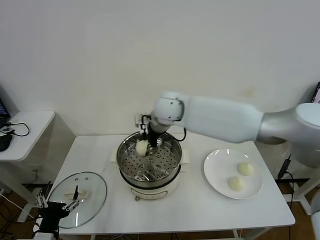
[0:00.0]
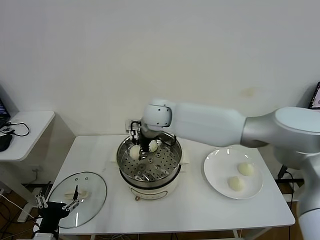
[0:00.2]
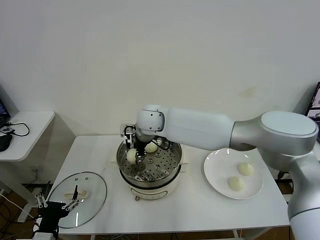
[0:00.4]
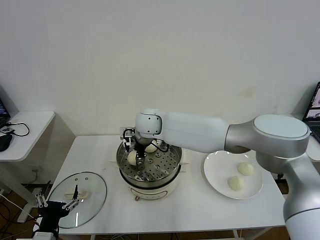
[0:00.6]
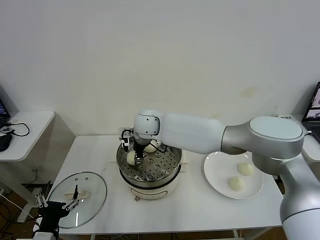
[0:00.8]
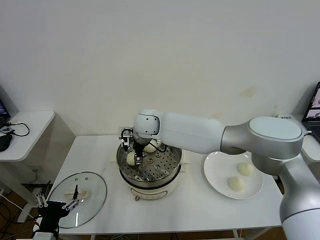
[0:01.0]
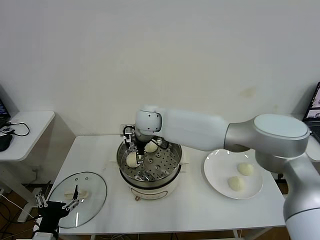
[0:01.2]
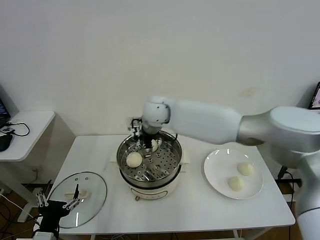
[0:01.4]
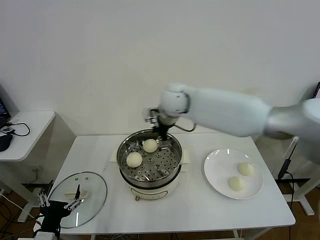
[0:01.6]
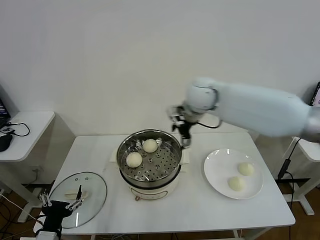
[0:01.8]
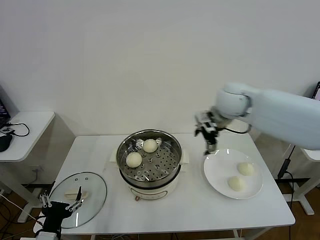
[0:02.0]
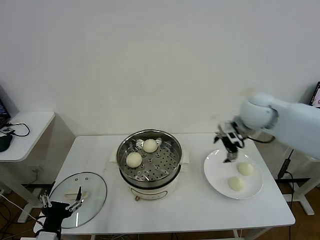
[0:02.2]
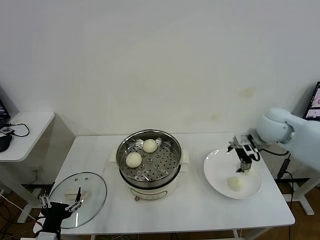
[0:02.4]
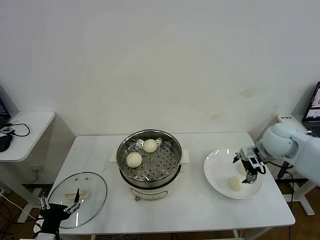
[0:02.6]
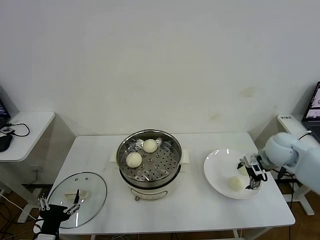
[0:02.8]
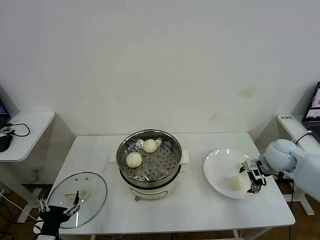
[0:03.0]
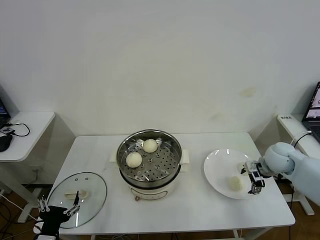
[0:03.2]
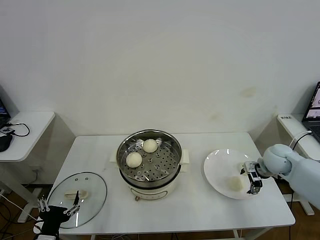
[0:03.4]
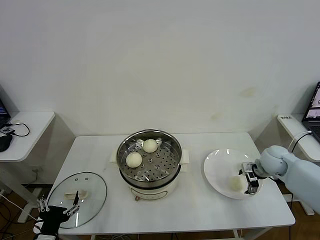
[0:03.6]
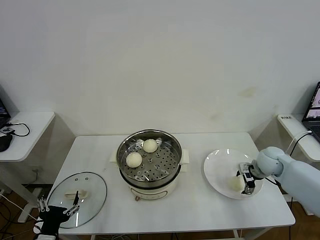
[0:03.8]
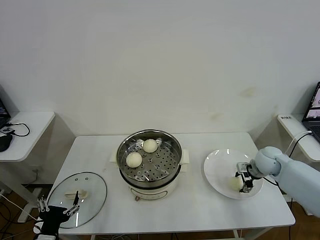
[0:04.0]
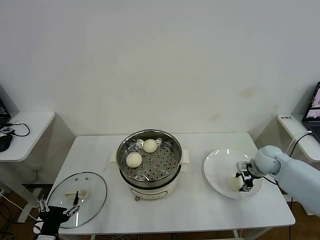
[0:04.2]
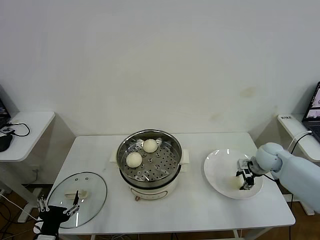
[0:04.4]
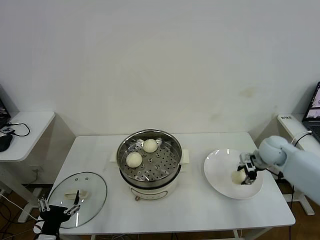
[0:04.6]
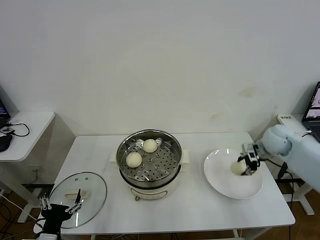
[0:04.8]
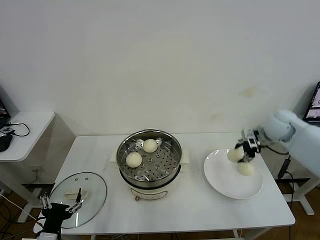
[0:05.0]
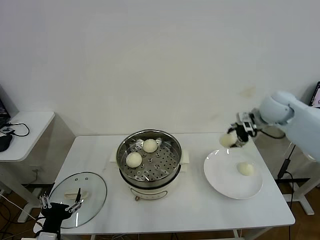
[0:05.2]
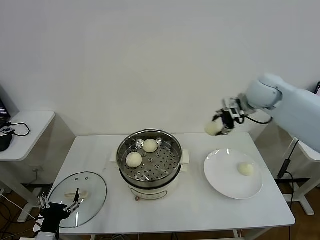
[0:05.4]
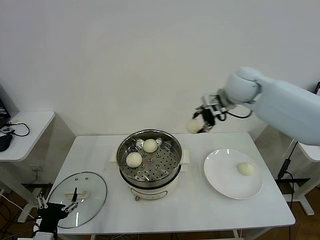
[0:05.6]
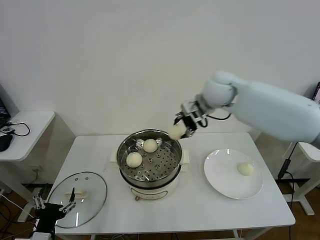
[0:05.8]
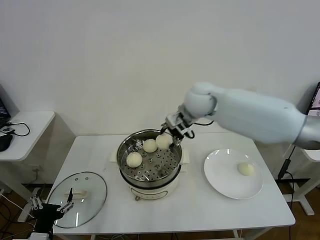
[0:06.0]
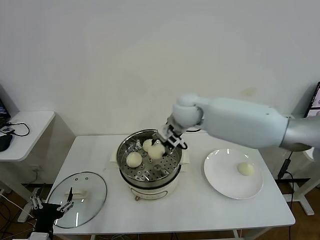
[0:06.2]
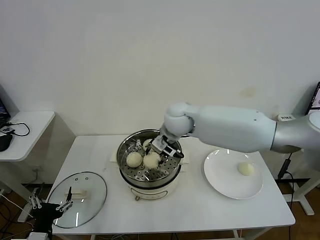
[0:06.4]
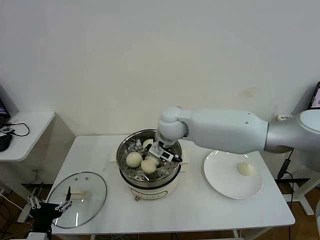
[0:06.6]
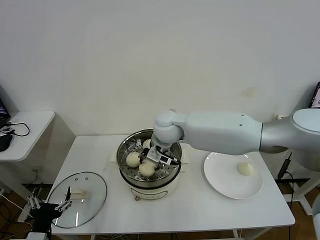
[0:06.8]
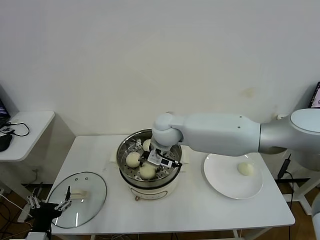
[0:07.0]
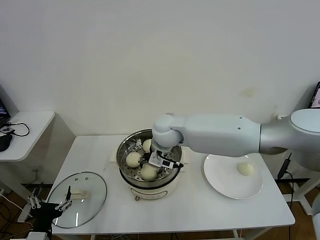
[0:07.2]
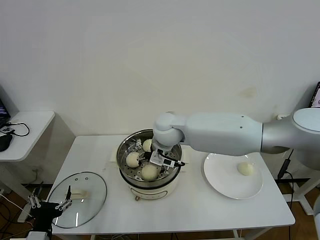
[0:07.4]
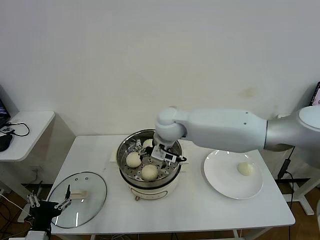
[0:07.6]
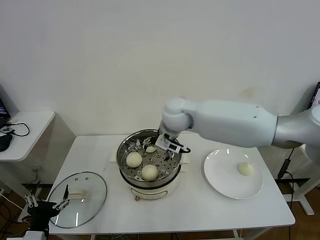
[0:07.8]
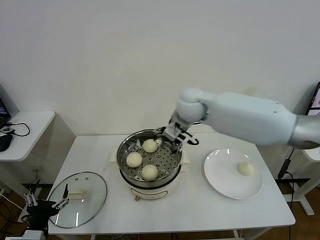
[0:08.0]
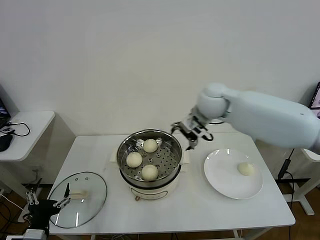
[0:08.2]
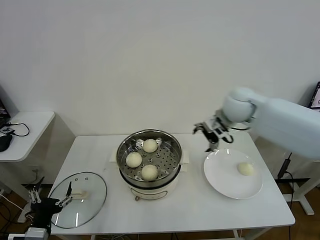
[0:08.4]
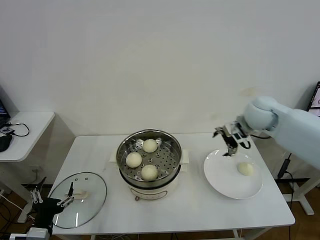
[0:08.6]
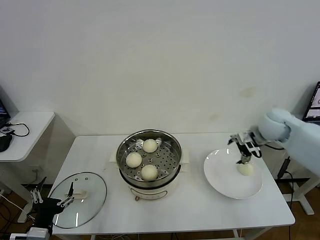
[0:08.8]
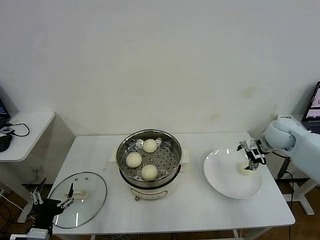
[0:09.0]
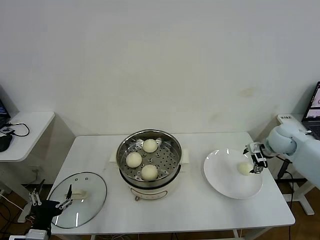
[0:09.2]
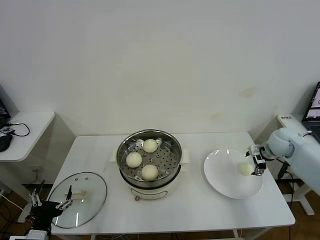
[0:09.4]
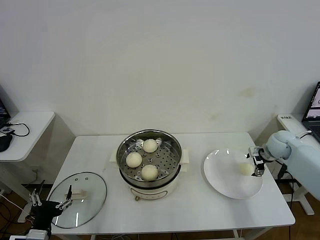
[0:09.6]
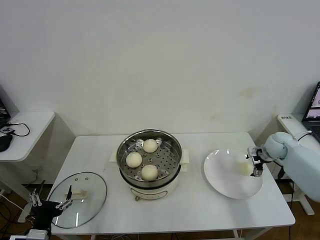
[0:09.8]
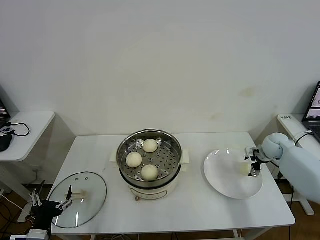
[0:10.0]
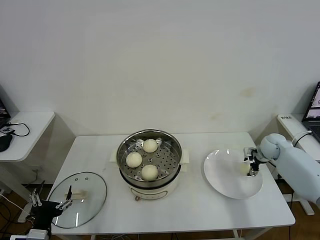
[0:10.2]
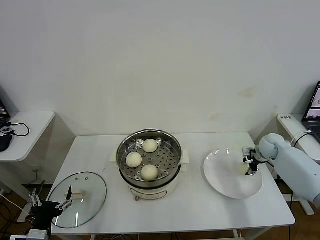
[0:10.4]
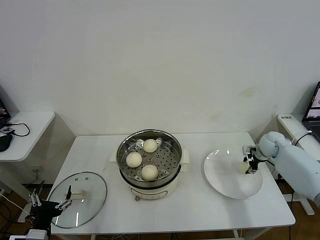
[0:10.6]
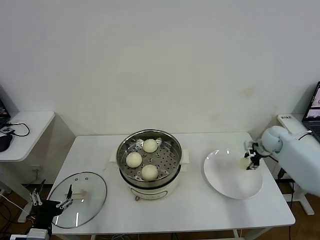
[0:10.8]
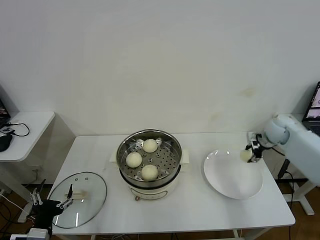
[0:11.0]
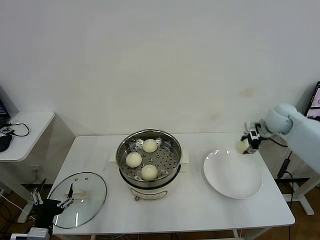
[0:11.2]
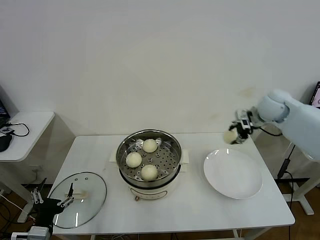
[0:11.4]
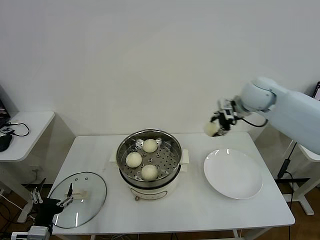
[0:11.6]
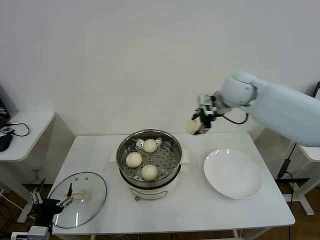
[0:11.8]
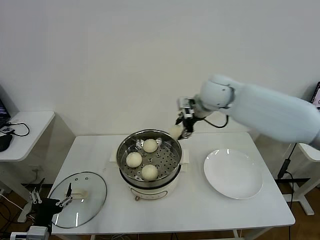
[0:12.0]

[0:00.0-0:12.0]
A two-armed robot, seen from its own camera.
Task of the whole recording: take steamed baozi put them in steamer then cover it.
Step, 0:01.4 to 0:04.2: Grasp the baozi in the plate with right gripper.
Step, 0:04.4 to 0:07.4: Place the baozi on the steamer with right gripper.
Step, 0:07.6 to 0:10.6: Grasp the baozi in the plate with right gripper.
0:00.0 to 0:01.6: The right gripper shifts roughly 5 cm to the right, and opens.
0:01.6 to 0:03.0: The right gripper moves to the right and downward, some 35 cm.
0:03.0 to 0:04.4: The right gripper closes.
0:04.4 to 0:06.0: The right gripper shifts approximately 35 cm to the left and upward.
0:06.0 to 0:07.6: The right gripper goes some 5 cm to the left, and opens its fingers.
0:07.6 to 0:09.0: The right gripper moves to the right, approximately 35 cm.
0:09.0 to 0:10.4: The right gripper moves downward, approximately 10 cm, and closes.
0:10.4 to 0:12.0: The right gripper shifts roughly 40 cm to the left and upward.

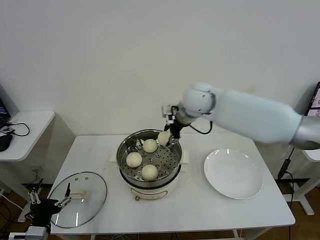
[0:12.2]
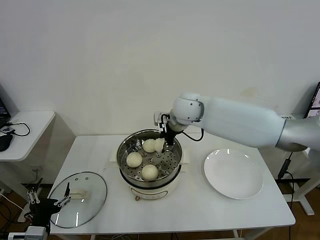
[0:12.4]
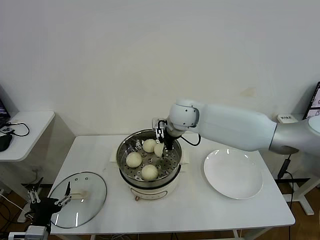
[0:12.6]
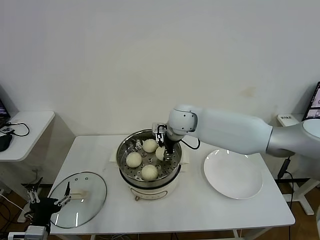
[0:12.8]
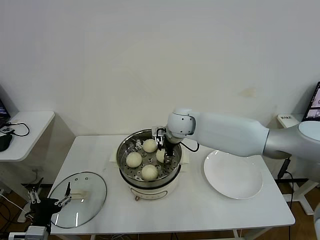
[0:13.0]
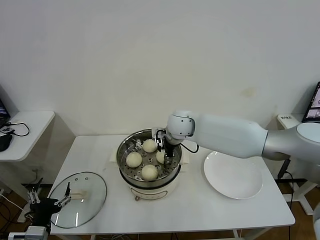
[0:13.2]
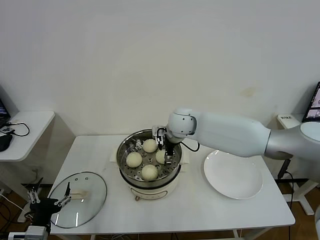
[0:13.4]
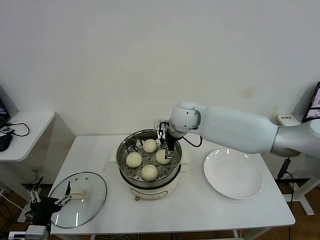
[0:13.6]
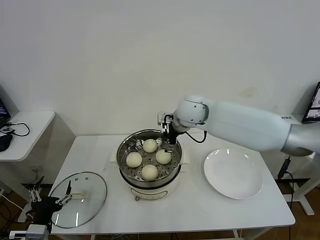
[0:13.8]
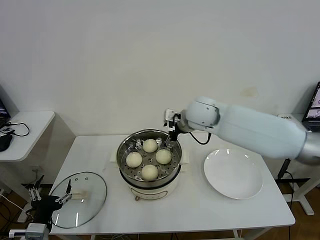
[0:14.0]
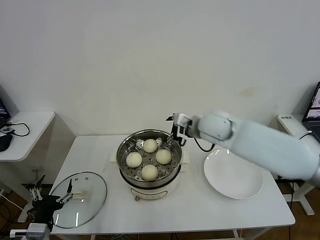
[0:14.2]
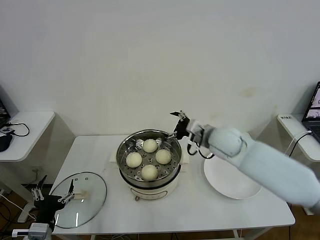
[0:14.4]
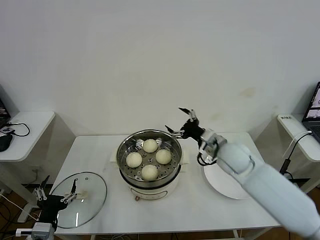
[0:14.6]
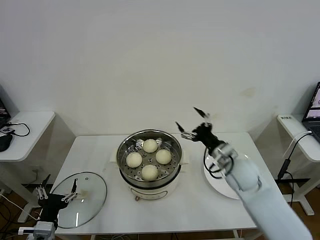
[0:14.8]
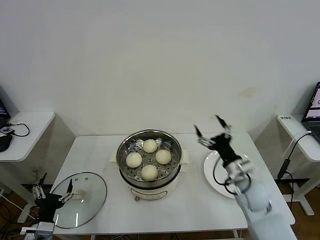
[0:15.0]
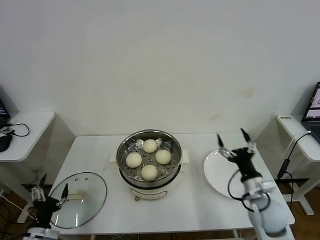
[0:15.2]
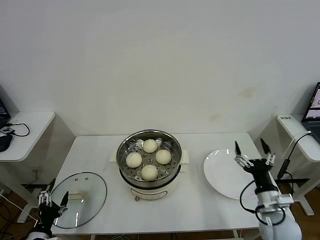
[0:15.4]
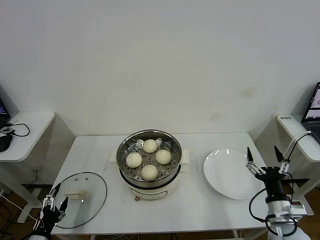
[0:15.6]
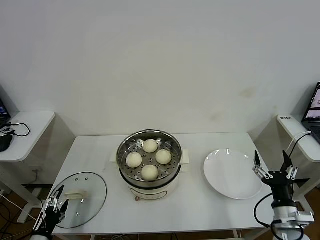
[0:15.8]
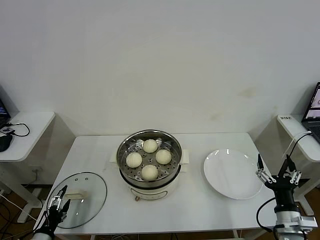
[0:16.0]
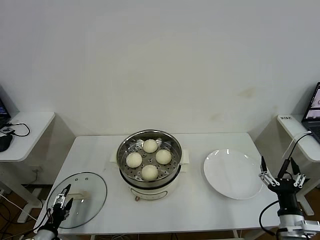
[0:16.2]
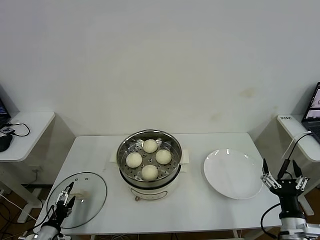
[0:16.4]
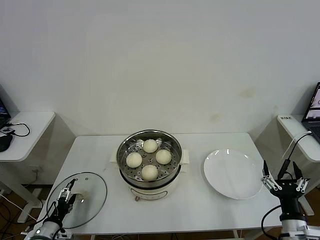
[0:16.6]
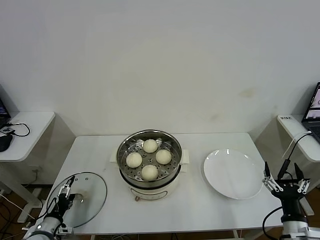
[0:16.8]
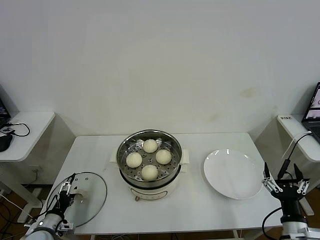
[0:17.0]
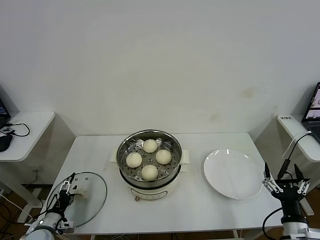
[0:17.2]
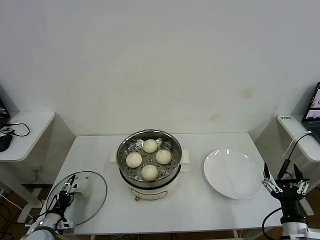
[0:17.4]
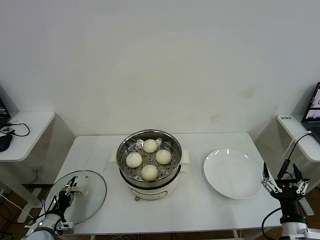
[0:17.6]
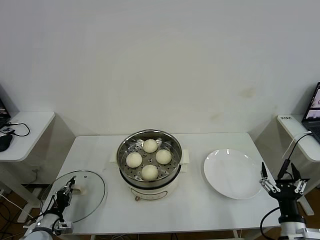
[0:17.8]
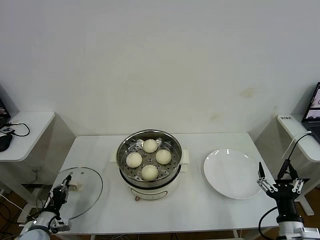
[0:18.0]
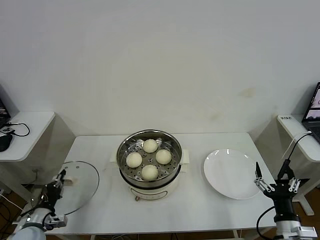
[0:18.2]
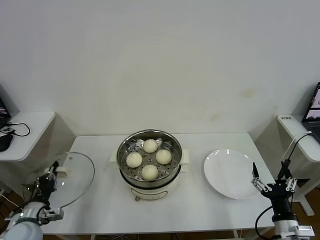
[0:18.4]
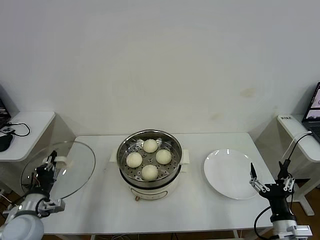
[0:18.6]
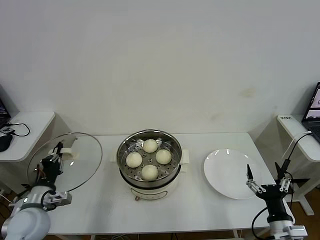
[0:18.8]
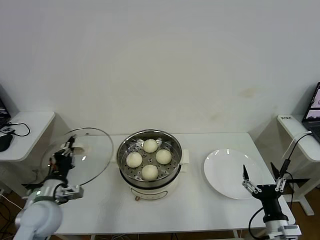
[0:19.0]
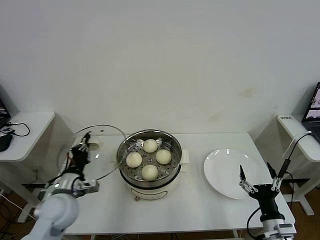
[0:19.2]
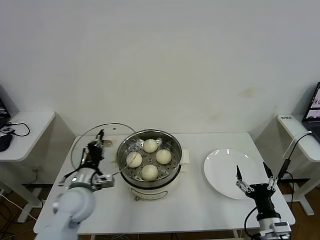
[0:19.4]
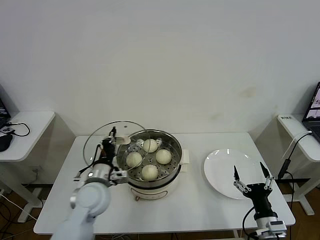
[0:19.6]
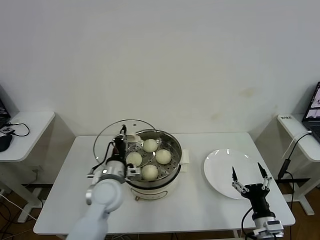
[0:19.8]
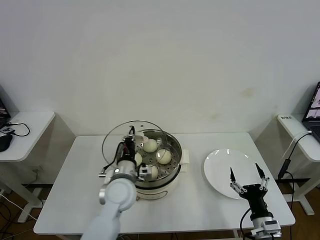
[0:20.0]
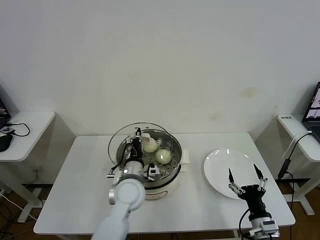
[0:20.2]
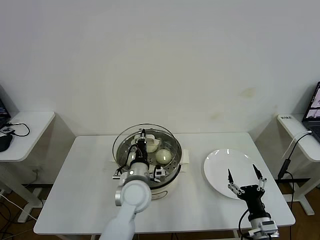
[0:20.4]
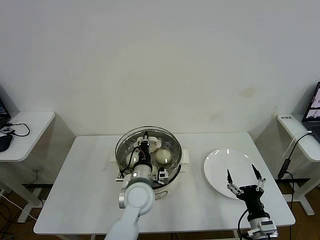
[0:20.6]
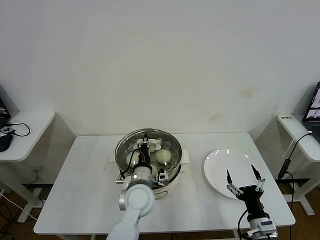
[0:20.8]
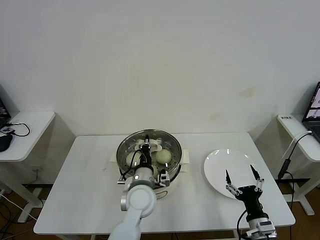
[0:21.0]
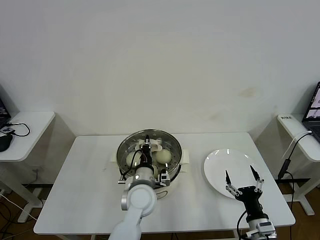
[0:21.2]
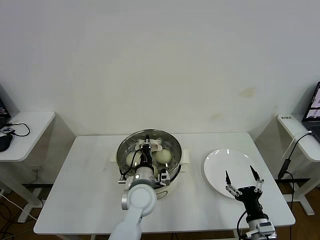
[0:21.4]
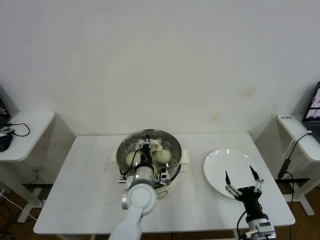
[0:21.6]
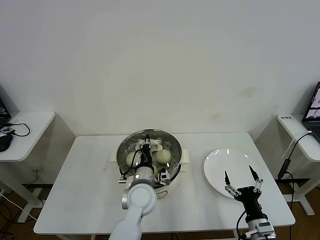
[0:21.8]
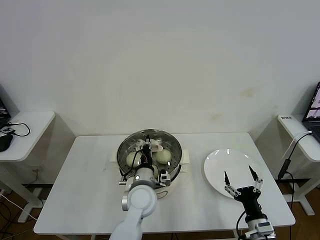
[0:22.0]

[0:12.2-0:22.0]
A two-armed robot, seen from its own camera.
Task of the whole recording: take steamed baozi put them in steamer then cover it.
Step, 0:12.2 to 0:13.6: Place the baozi on the steamer with right gripper.
Step, 0:13.8 to 0:18.0: Grasp the pot lid with left gripper.
0:12.2 to 0:13.6: The right gripper goes approximately 5 cm downward, and opens up.
0:13.6 to 0:15.0: The right gripper heads to the right, backward and downward, covering some 30 cm.
0:15.0 to 0:16.4: The right gripper heads backward and to the right, covering roughly 20 cm. The left gripper shifts approximately 10 cm downward and to the left.
0:16.4 to 0:17.8: The left gripper closes its fingers.
0:17.8 to 0:19.2: The left gripper shifts approximately 20 cm upward and to the right.
0:19.2 to 0:20.6: The left gripper goes some 25 cm to the right.
0:20.6 to 0:22.0: The grippers move only a little.
